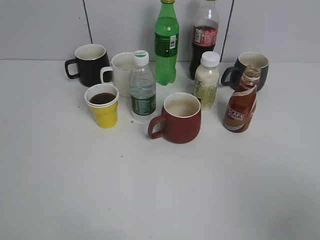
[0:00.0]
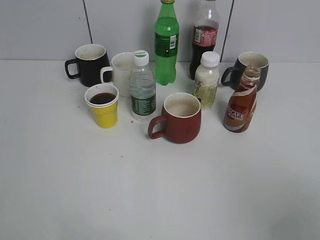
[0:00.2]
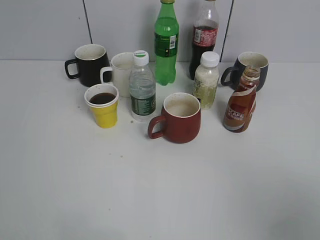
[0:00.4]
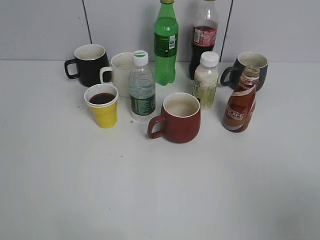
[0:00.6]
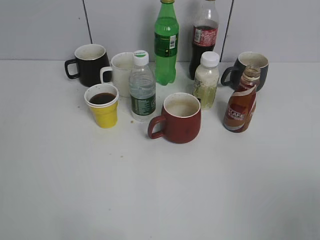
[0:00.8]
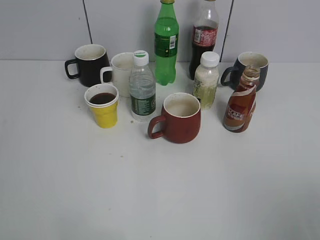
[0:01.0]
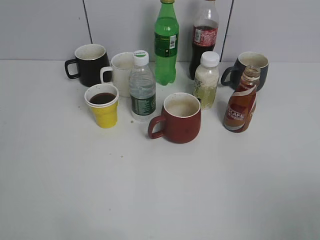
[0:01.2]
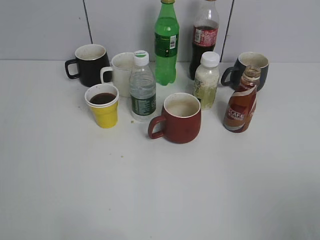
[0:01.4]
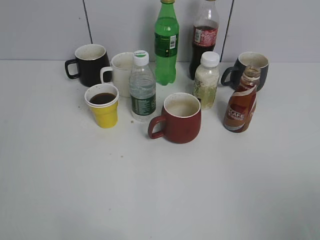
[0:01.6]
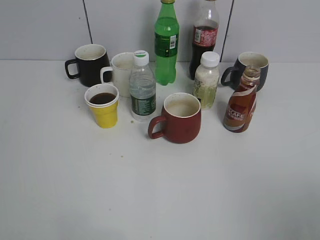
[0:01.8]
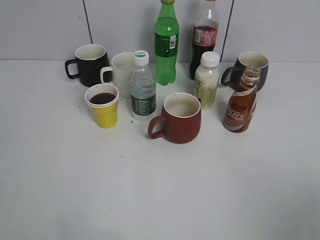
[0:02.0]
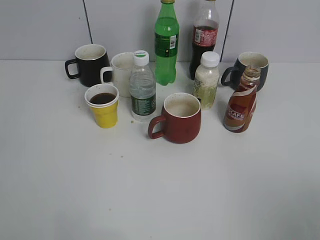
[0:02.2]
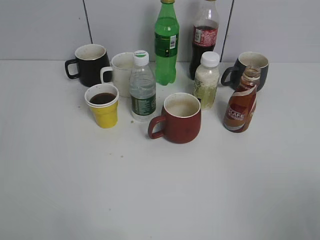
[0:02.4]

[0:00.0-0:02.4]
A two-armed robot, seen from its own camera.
0:01.2 to 0:02.4: Both grippers stay put.
